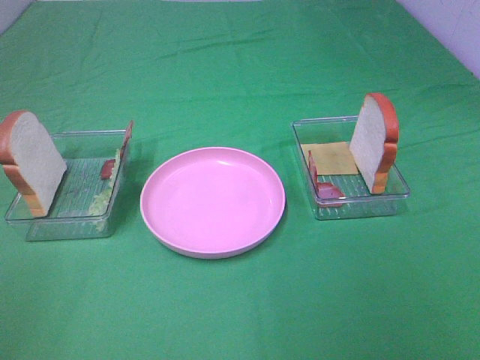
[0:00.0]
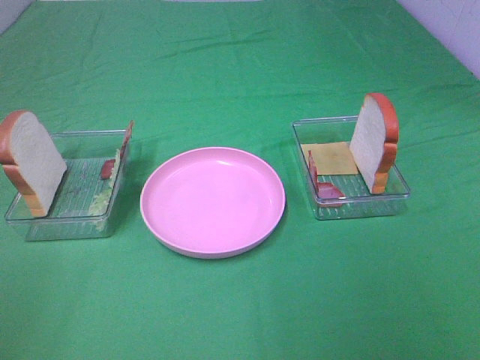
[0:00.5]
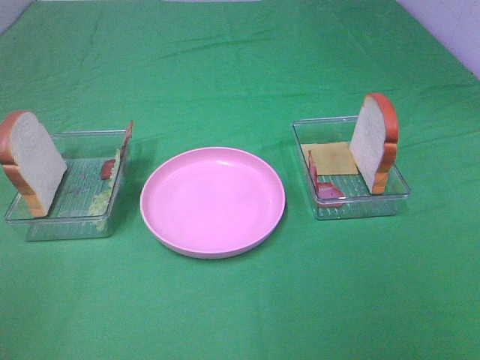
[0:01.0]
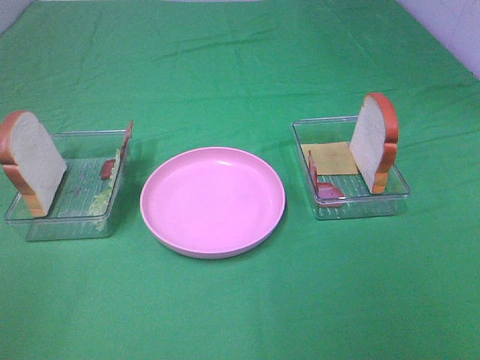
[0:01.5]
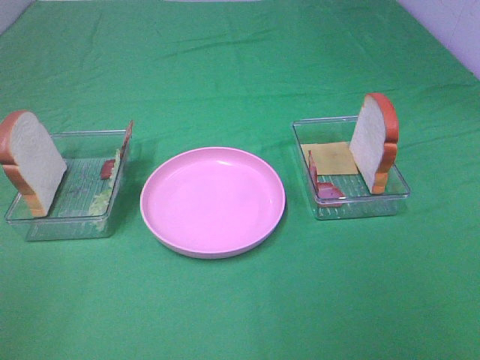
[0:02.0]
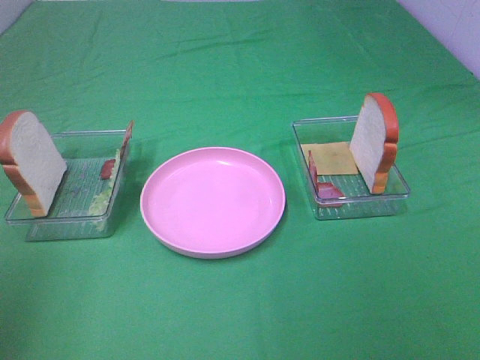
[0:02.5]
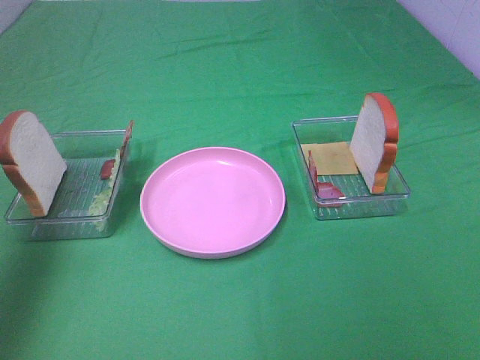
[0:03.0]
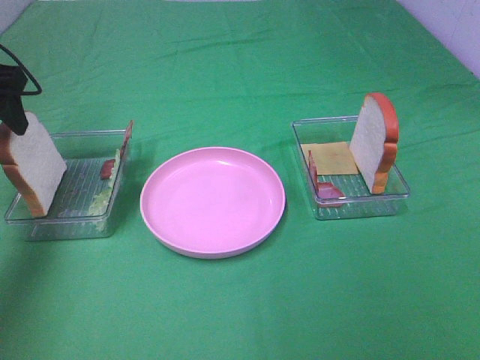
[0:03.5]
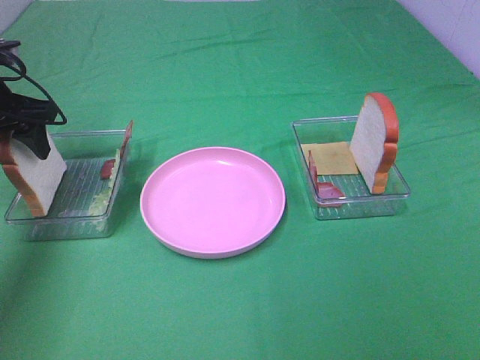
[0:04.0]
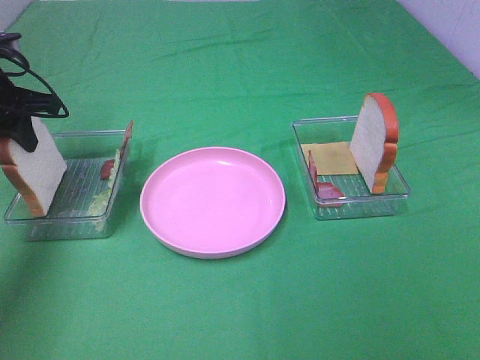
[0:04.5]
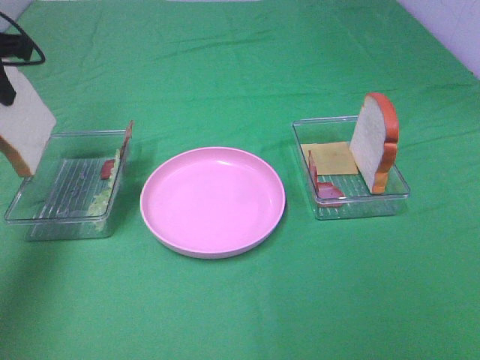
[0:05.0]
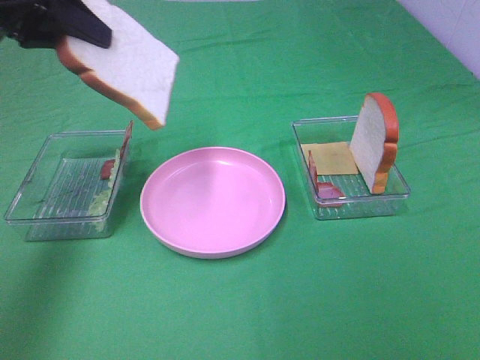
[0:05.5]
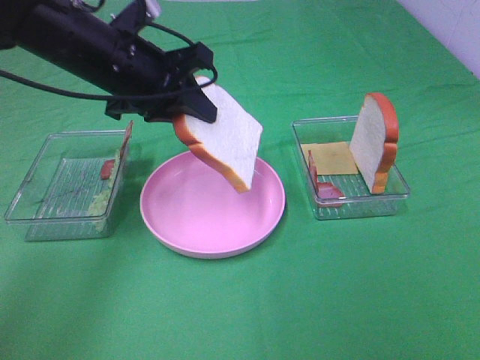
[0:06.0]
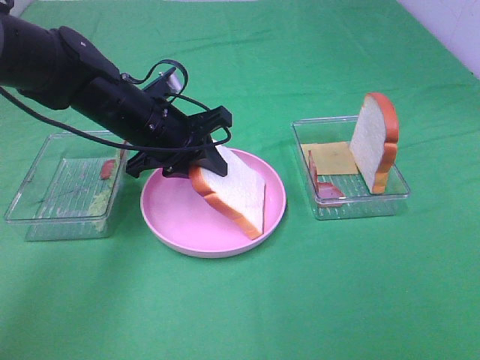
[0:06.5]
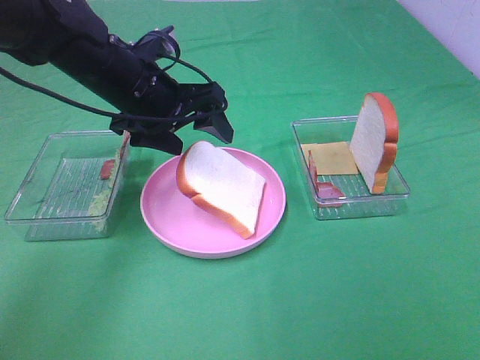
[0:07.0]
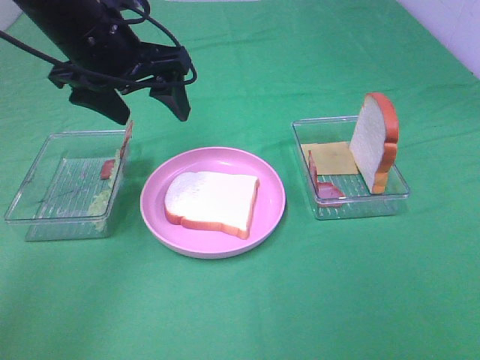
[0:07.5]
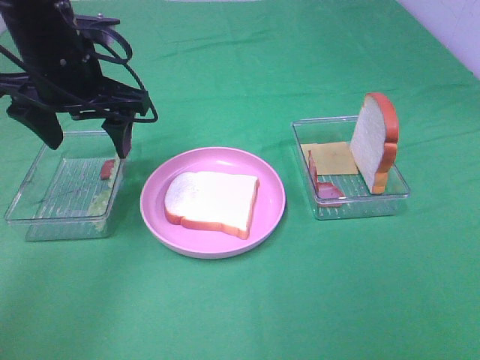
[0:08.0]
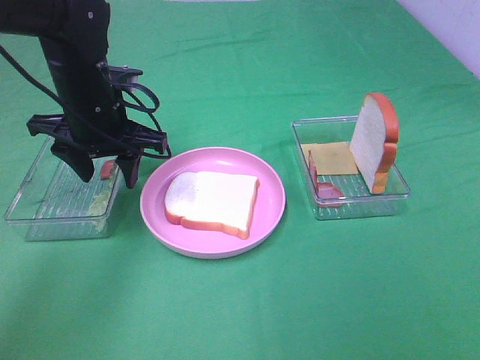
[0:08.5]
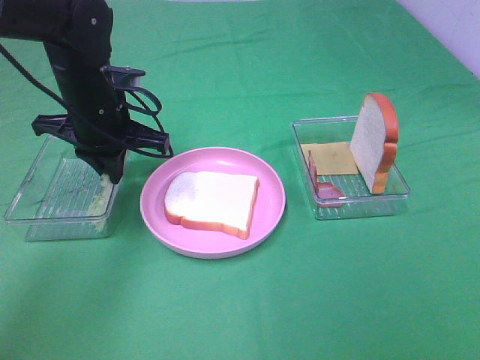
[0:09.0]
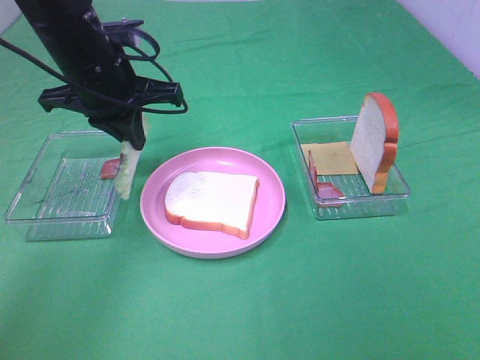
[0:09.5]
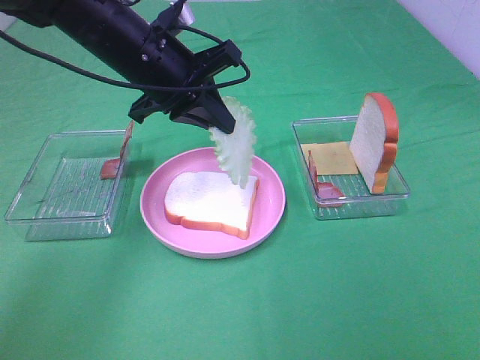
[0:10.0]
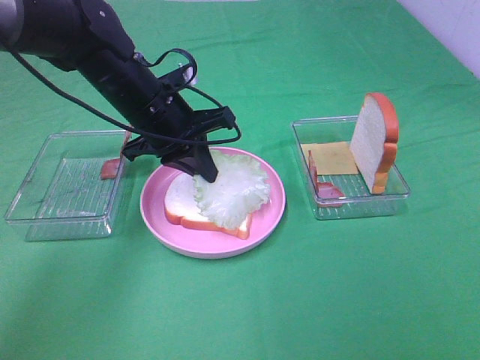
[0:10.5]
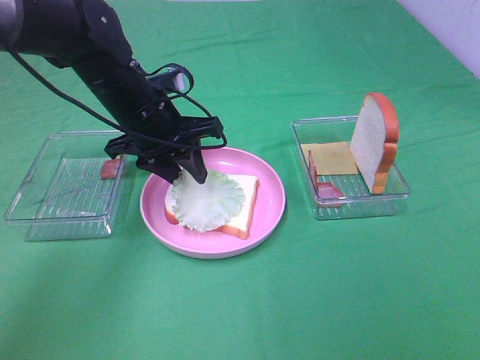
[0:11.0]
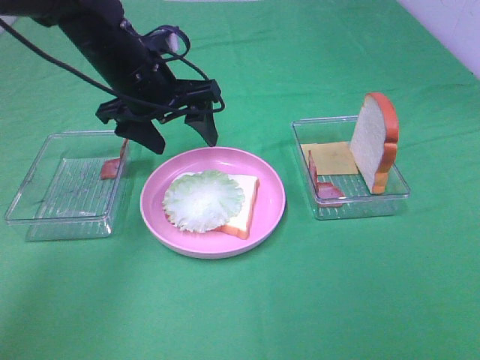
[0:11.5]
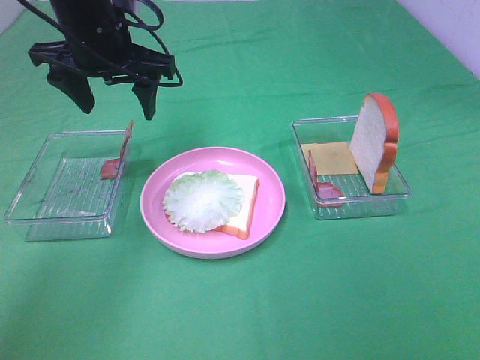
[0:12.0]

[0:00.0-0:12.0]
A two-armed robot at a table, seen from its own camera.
Task of the whole recording: Make sandwiches.
Step, 0:00.0 to 0:04.0: Left hand:grab the bread slice.
Step, 0:04.5 to 0:07.0: Left hand:place the bread slice on the plate.
Step, 0:07.5 to 0:09.0: Left hand:grab the lettuce slice.
Step, 0:09.5 to 0:11.0: Left hand:place the lettuce slice on the bread slice.
0:00.0 to 0:02.0: Neither gripper changes place.
0:02.0 to 0:04.0: The left gripper shifts some 40 cm forward.
0:04.0 to 0:06.0: The left gripper shifts some 20 cm to the right, and closes its fingers.
0:06.0 to 0:08.0: The left gripper goes downward and returns, roughly 5 cm each way, and opens up.
0:08.0 to 0:10.0: The left gripper moves to the right, approximately 5 cm, and closes up.
0:10.0 to 0:12.0: The left gripper reaches approximately 5 cm downward, then returns, and opens its fingers.

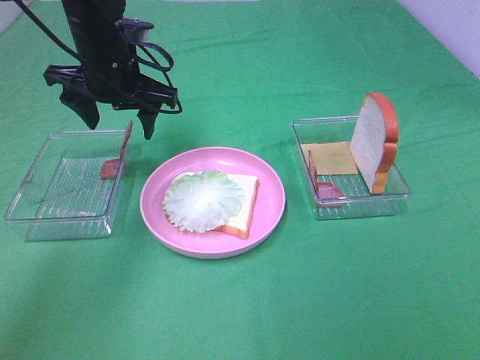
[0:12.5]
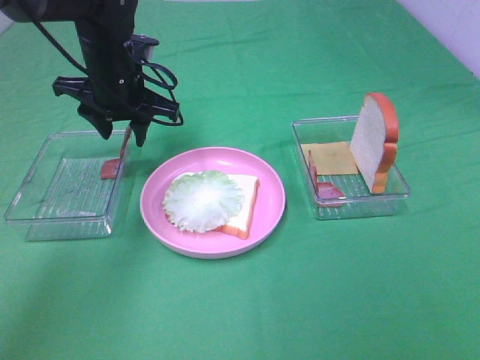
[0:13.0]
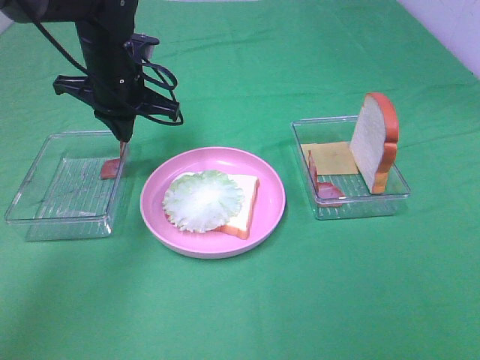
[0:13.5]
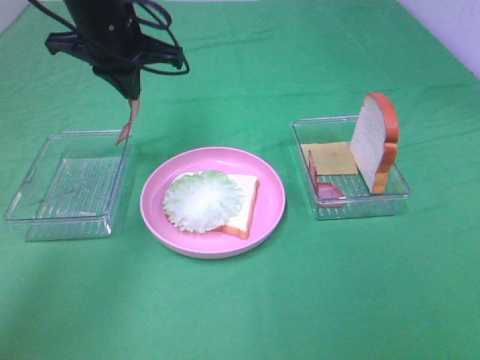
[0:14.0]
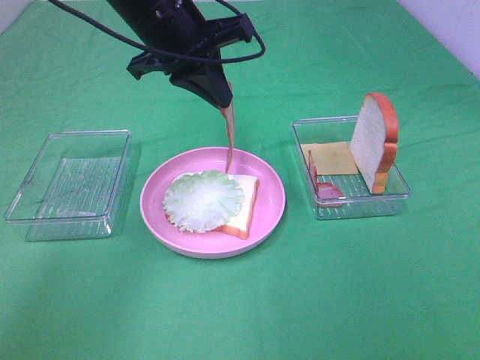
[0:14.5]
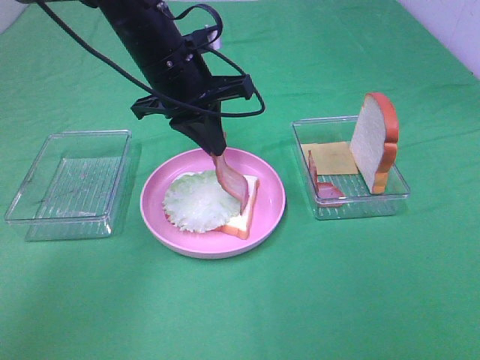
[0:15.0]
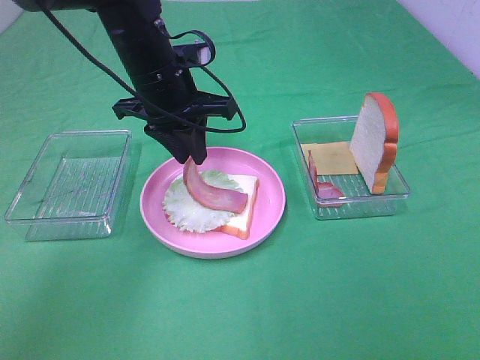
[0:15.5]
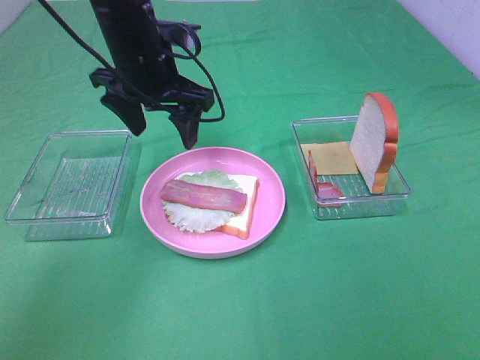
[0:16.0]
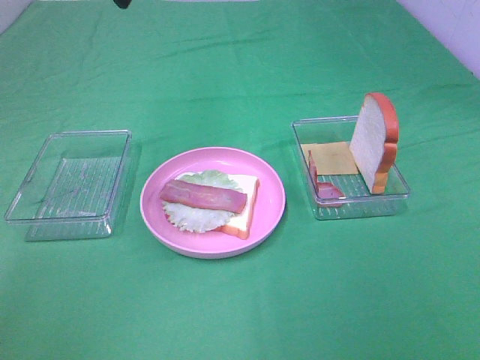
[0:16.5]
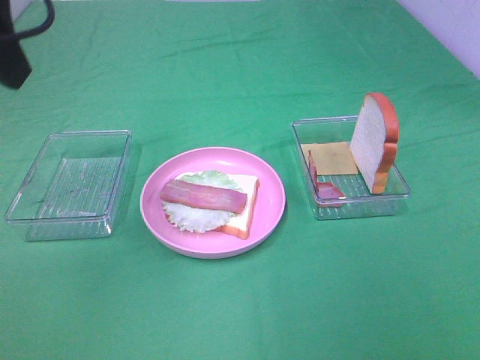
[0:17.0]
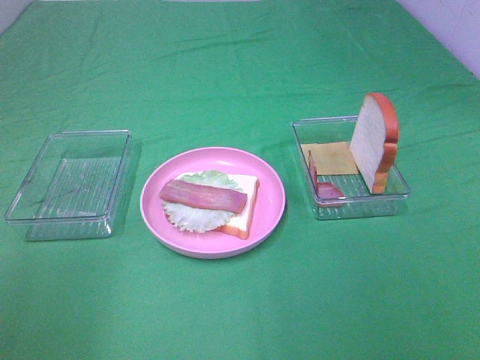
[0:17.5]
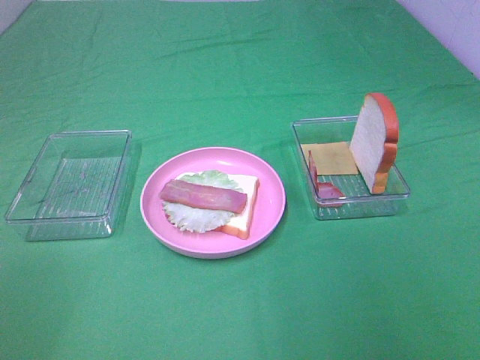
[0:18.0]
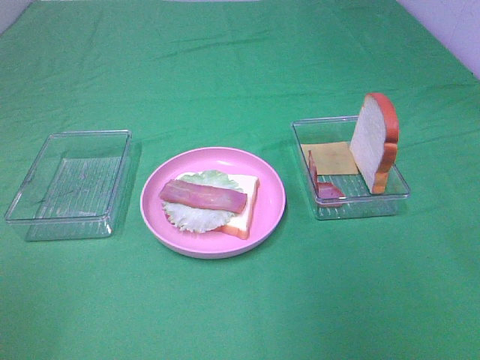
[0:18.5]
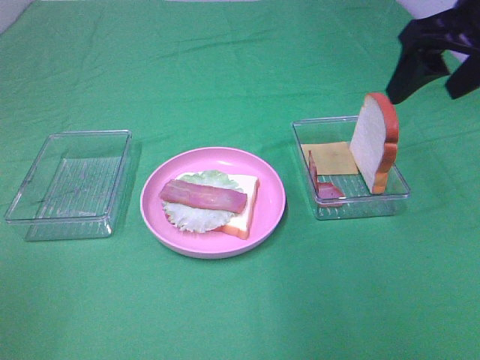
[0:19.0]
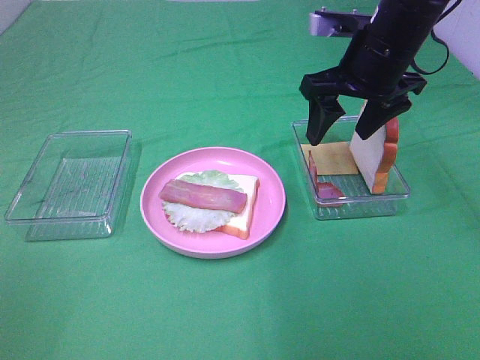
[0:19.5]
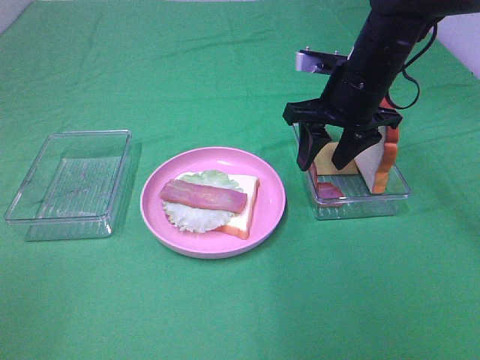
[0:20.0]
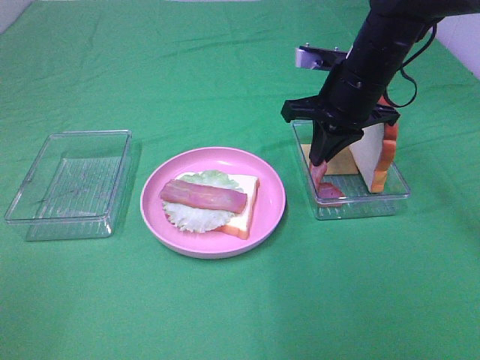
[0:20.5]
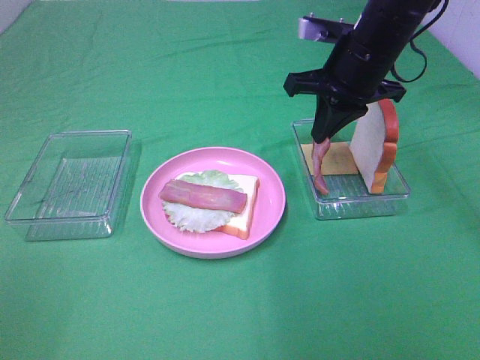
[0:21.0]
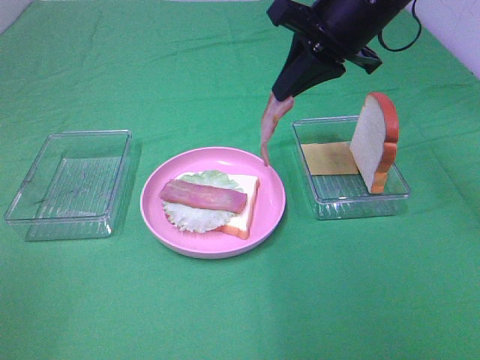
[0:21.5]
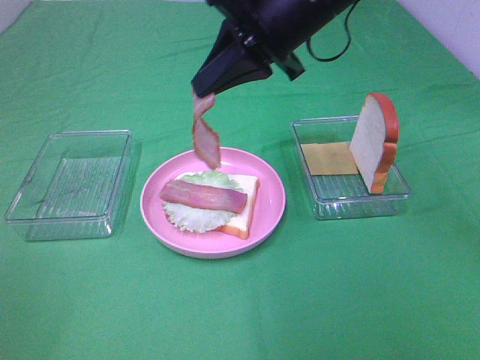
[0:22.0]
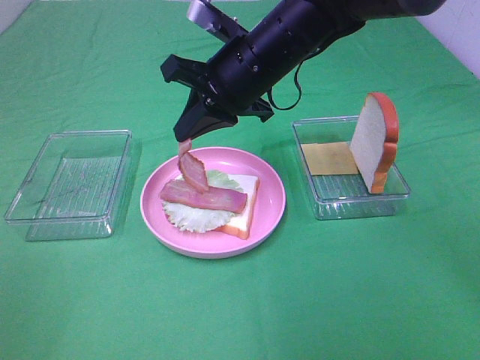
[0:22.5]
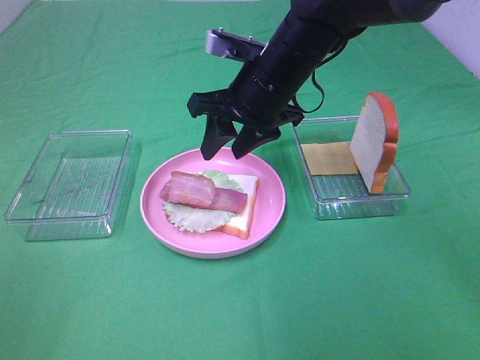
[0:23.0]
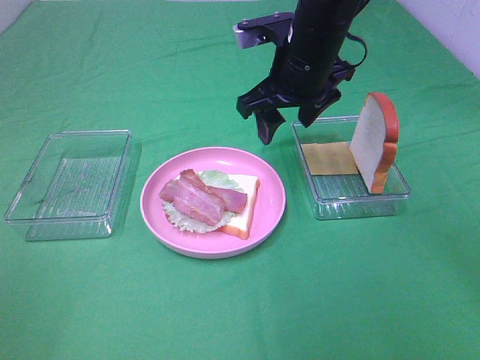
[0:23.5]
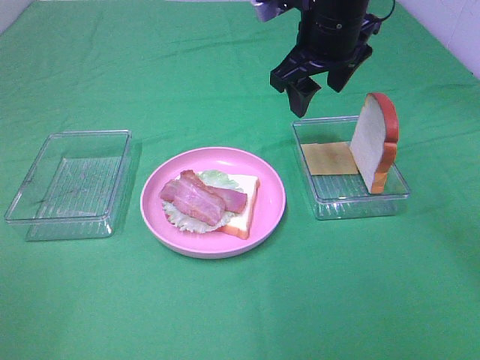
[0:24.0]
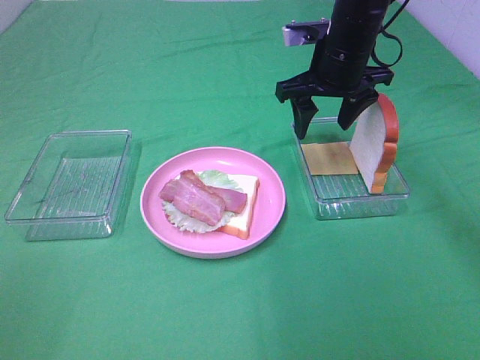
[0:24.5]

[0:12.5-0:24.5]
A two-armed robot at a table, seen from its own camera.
Task of the whole recording: Make sandwiches.
Step, 0:14.0 to 0:15.5: Left hand:place bacon on lettuce slice.
Step, 0:16.0 to 0:20.5: Right hand:grab the bacon.
Step, 0:21.0 to 0:23.0: Right hand:place bacon on bacon.
0:12.5 to 0:14.5: The left gripper is displaced to the right and upward by some 10 cm, and closes up.
0:14.5 to 0:16.5: The left gripper shifts about 15 cm upward, to the left and backward, and opens.
0:18.5 to 0:20.5: The right gripper heads forward, downward and to the left, covering about 25 cm, and closes.
0:20.5 to 0:22.5: The right gripper moves to the left, approximately 10 cm.
0:22.5 to 0:24.5: The right gripper heads to the right and forward, covering about 10 cm, and opens.

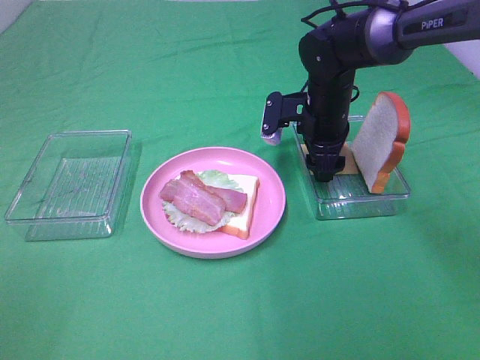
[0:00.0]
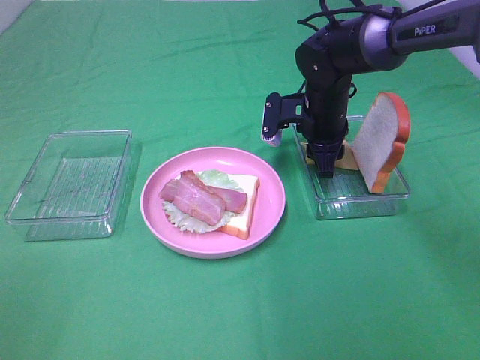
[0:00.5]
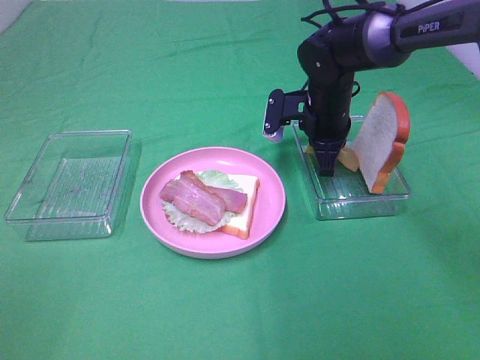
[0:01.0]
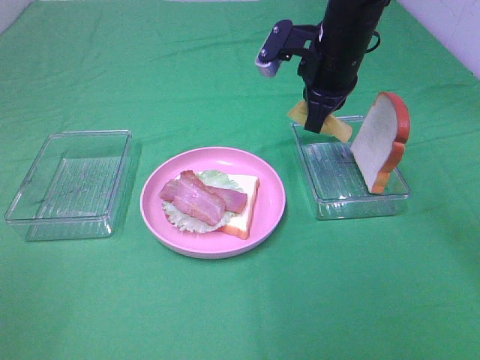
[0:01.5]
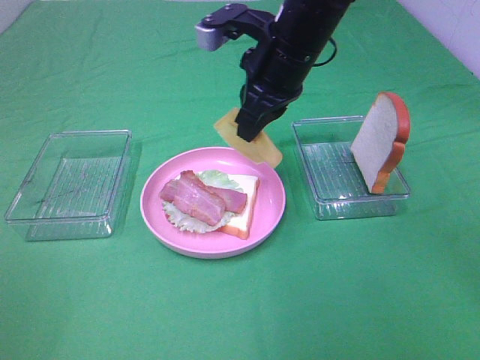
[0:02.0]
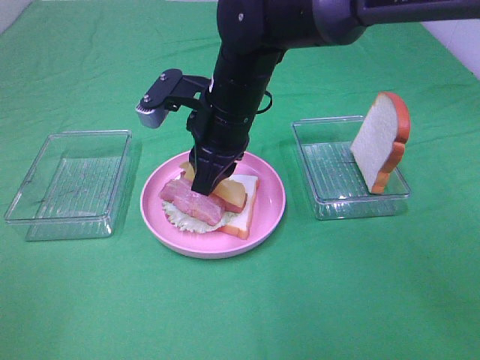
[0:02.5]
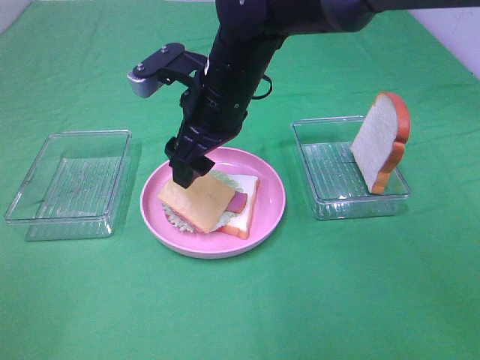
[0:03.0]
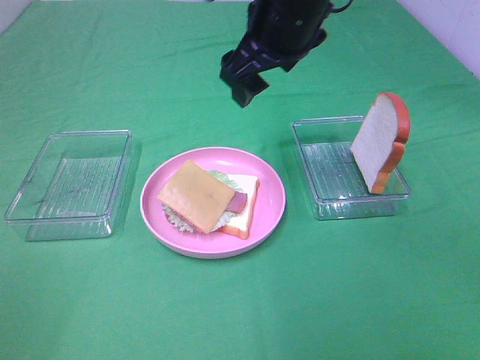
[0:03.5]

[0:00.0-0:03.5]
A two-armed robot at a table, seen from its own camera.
Task of the whole recording: Make sandwiches.
Step, 0:01.0 to 0:02.5: Right hand:place the cheese slice on top of the bacon.
0:00.0 to 0:02.0: The right gripper is displaced upward, to the left and backward by roughly 15 cm, and closes.
0:02.0 to 0:03.5: The right gripper opens.
